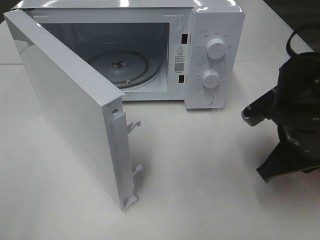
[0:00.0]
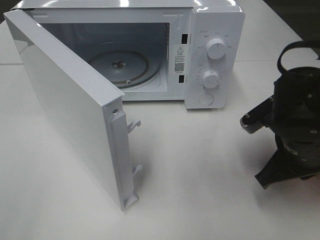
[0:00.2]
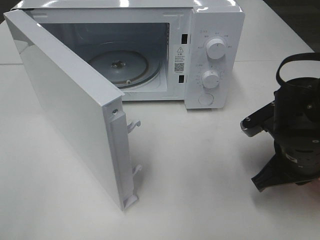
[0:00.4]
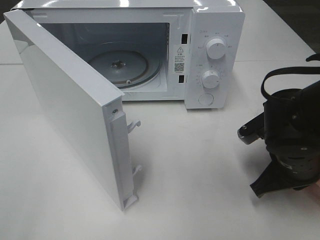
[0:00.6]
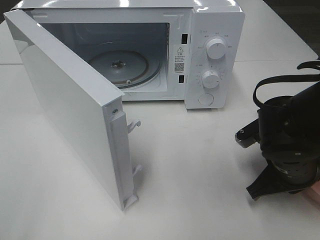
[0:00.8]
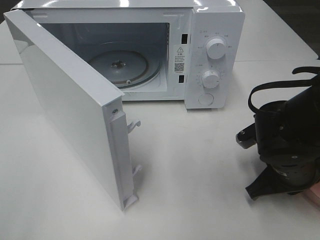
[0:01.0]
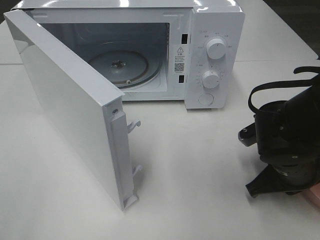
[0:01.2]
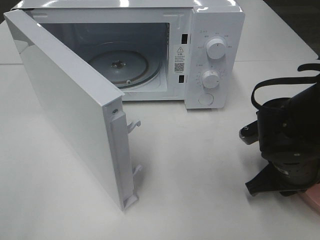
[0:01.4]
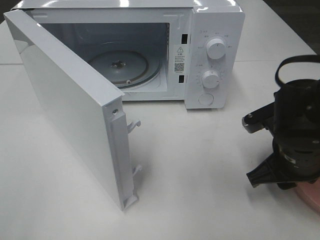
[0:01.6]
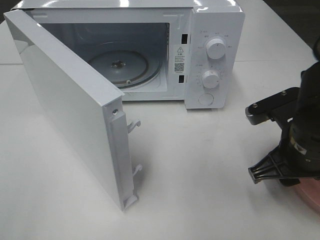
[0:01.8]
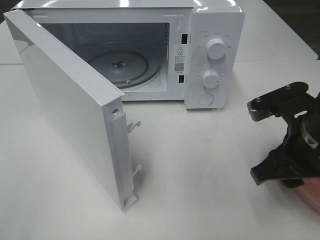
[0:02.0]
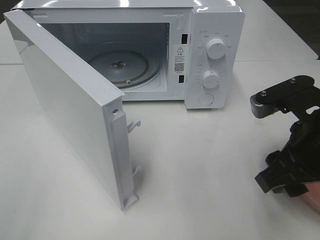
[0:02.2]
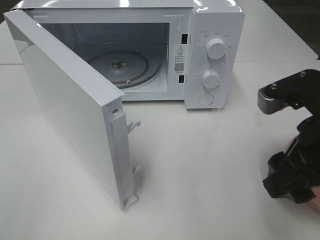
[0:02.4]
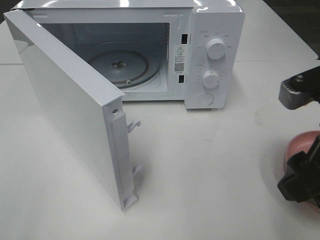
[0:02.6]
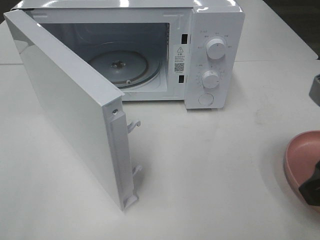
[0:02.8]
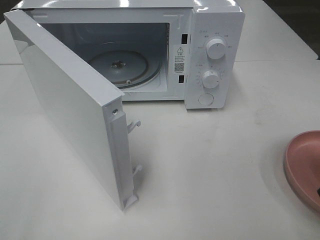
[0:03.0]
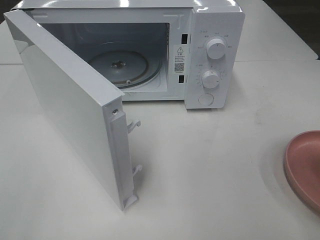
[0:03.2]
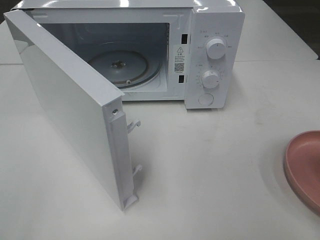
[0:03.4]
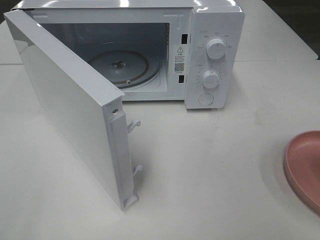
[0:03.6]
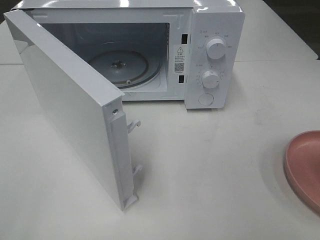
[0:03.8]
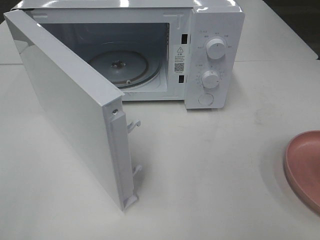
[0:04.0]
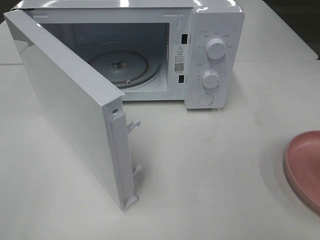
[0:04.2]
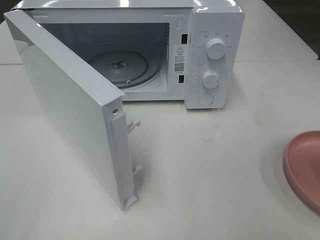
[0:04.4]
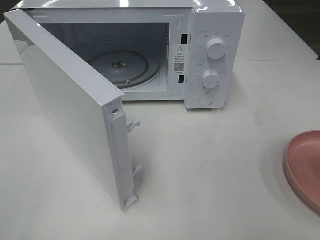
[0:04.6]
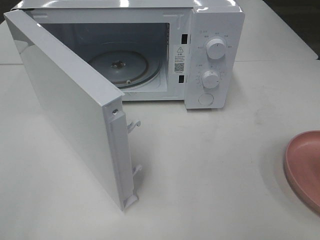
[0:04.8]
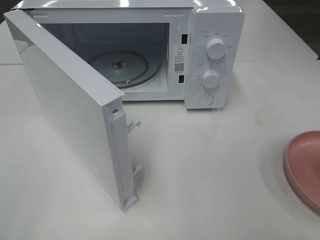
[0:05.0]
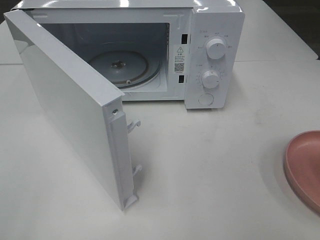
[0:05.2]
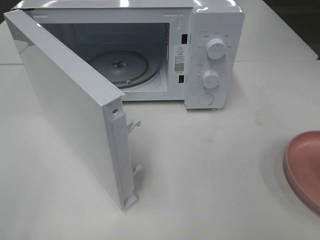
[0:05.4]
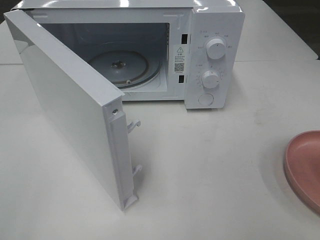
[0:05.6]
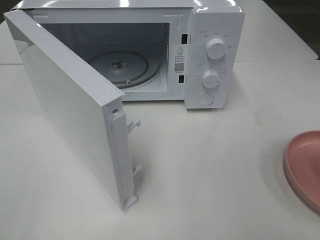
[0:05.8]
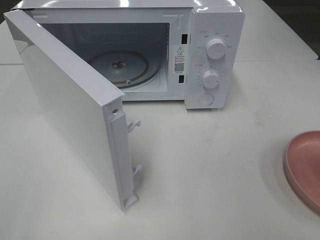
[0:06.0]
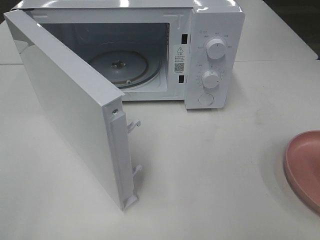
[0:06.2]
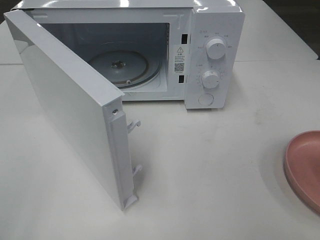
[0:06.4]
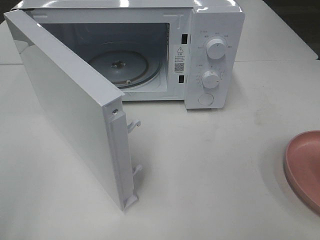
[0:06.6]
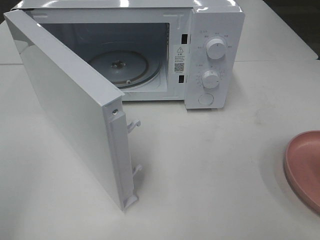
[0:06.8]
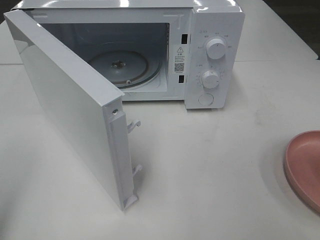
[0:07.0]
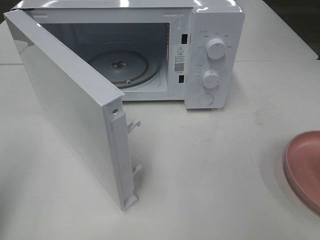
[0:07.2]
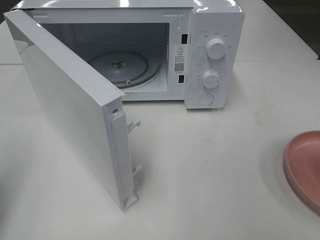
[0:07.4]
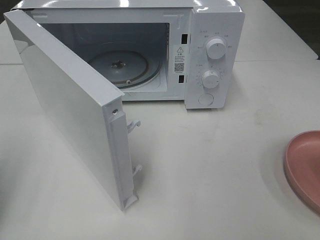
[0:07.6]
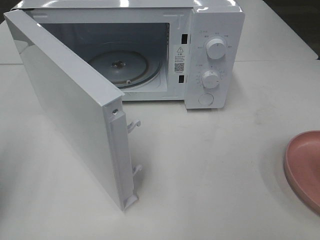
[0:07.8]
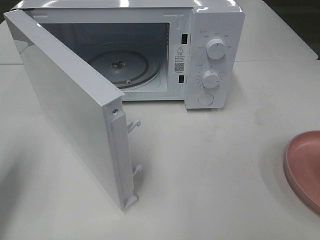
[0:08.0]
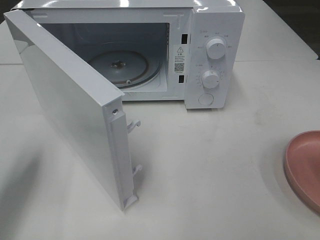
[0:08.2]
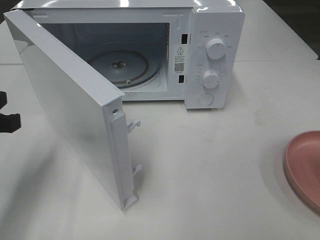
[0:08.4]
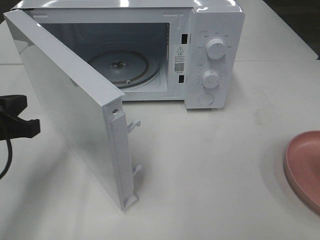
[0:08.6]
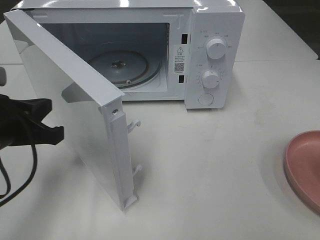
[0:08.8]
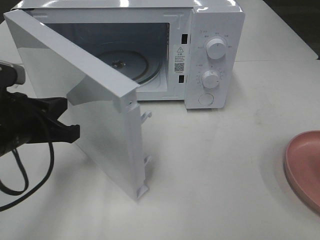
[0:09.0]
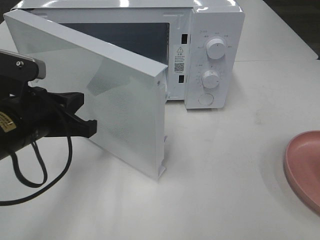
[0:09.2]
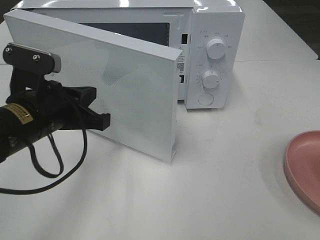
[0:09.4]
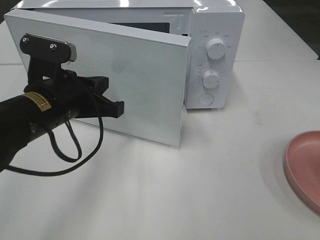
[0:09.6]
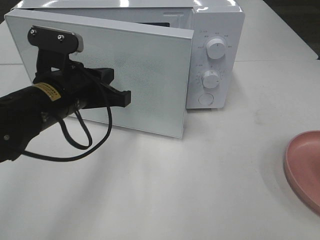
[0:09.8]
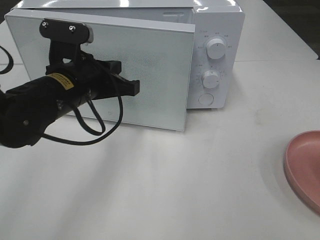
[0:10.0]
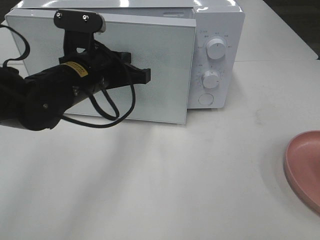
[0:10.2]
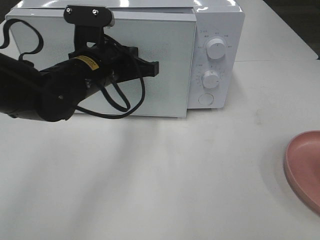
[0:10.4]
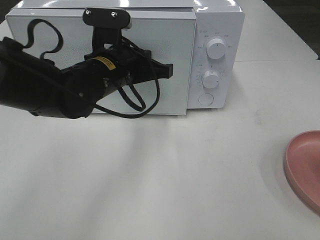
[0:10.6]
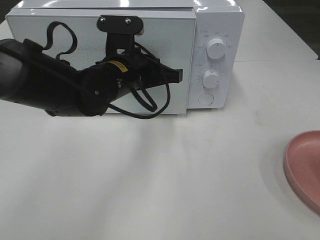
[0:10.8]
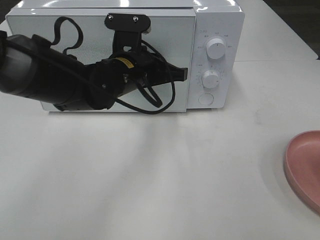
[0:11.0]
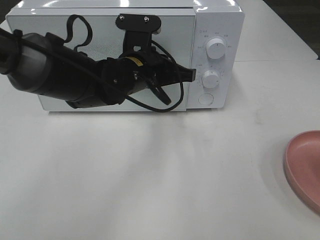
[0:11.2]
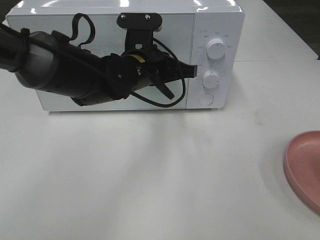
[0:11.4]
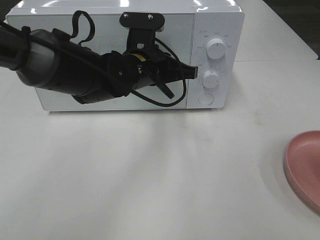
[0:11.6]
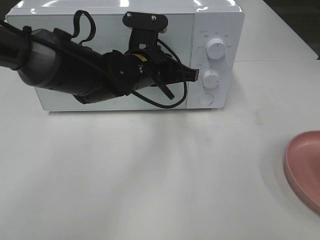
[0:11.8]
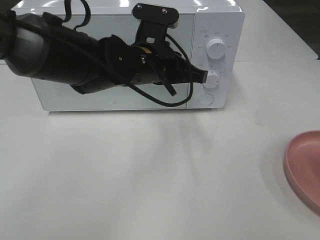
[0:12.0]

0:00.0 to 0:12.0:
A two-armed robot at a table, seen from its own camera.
Task of the whole recording: Heat the burger.
Step, 0:01.6 to 0:11.8: Left hand: close the microwave door.
0:00.0 to 0:01.6: The right gripper opens its fingers.
0:01.6 to 0:03.0: The right gripper is displaced upward and backward by roughly 20 cm.
0:04.4 to 0:06.0: Both grippers stay put.
0:06.0 to 0:07.6: The left gripper goes approximately 15 cm forward, and closes up.
0:07.6 to 0:09.0: The left gripper travels to the right, downward and forward by some 15 cm.
0:09.0 to 0:10.4: The left gripper travels to the right and forward by some 15 cm.
0:10.4 to 0:12.0: The left gripper travels to the right by some 10 cm.

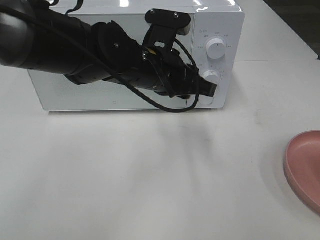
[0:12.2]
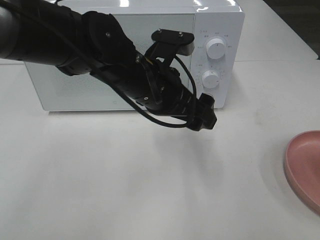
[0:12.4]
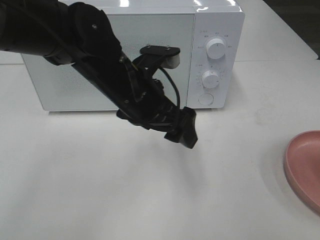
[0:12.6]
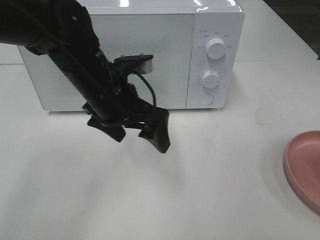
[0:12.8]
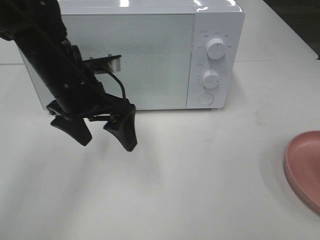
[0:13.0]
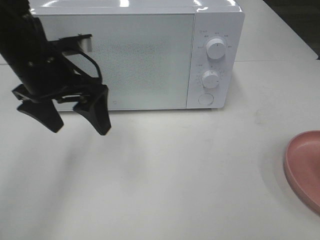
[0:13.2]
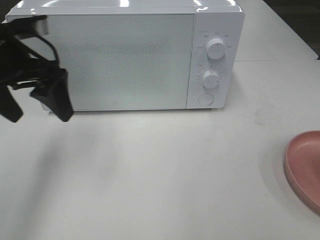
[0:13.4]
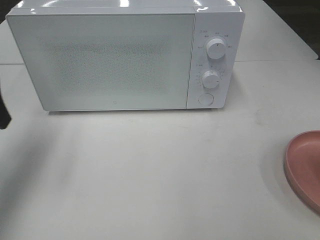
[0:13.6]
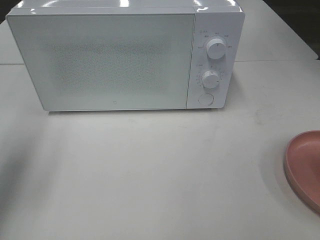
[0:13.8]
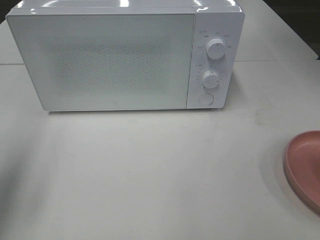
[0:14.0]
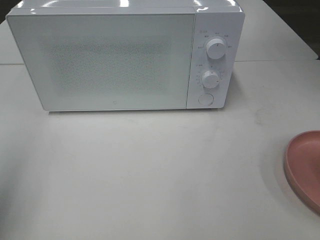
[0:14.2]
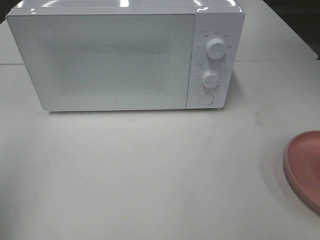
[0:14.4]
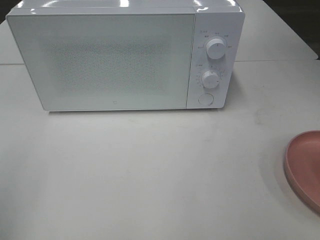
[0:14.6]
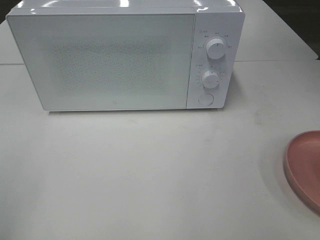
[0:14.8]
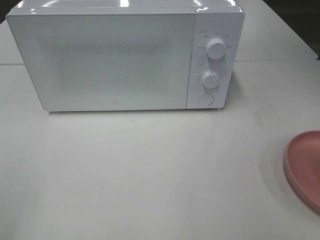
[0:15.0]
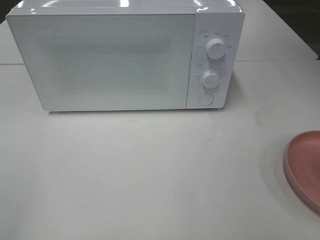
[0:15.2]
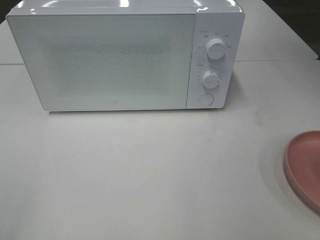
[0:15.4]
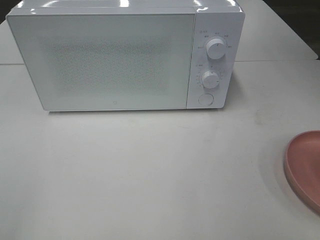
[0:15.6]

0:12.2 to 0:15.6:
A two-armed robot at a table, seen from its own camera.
Task of the whole recording: Heat the burger.
0:12.2 to 0:13.8: The left gripper is displaced to the left by approximately 30 cm, and opens.
0:13.8 to 0:15.6: The left gripper is displaced backward by about 25 cm.

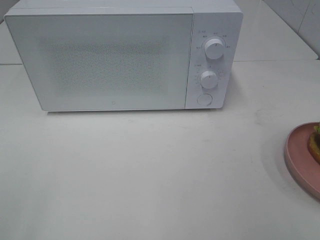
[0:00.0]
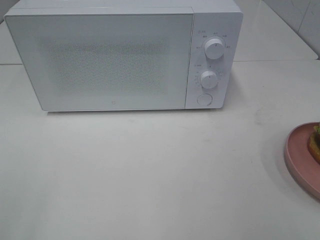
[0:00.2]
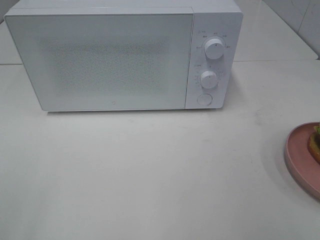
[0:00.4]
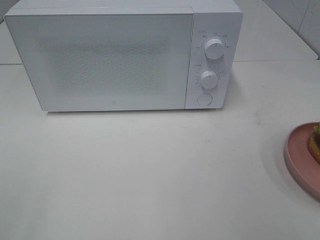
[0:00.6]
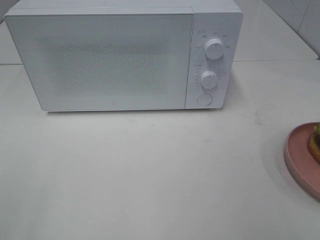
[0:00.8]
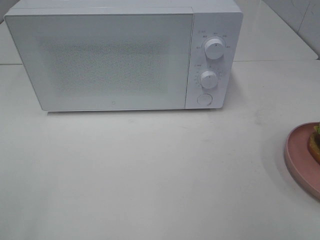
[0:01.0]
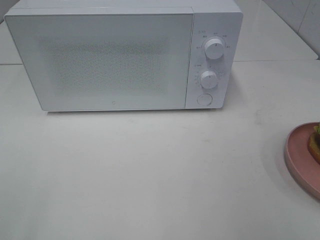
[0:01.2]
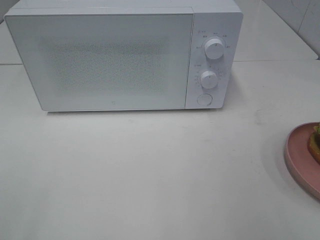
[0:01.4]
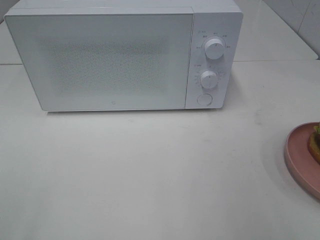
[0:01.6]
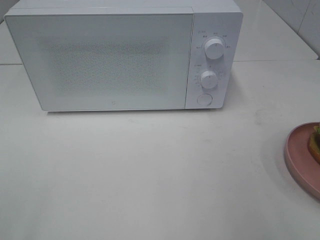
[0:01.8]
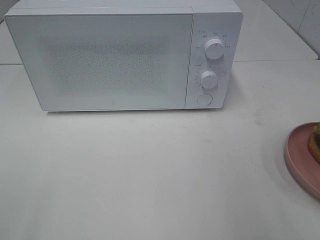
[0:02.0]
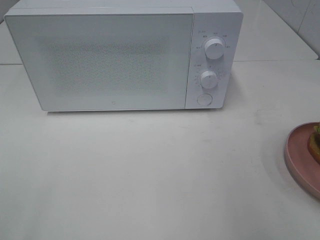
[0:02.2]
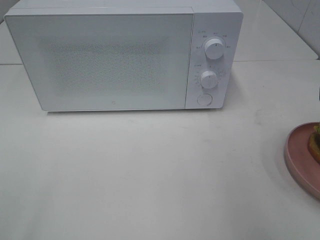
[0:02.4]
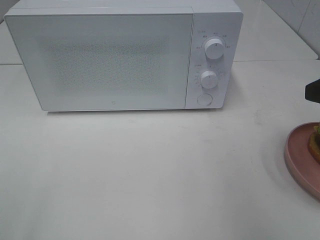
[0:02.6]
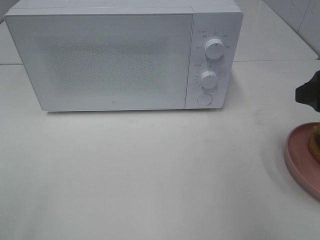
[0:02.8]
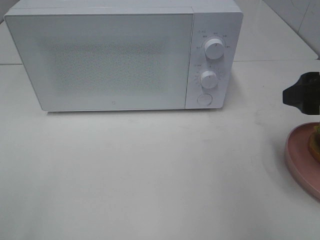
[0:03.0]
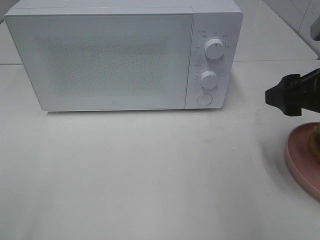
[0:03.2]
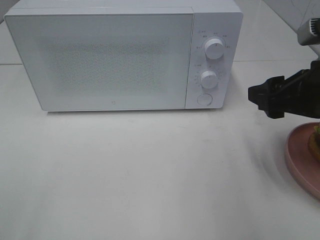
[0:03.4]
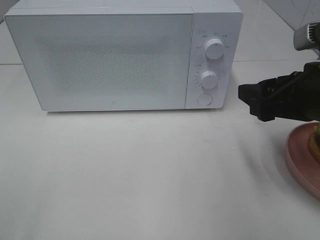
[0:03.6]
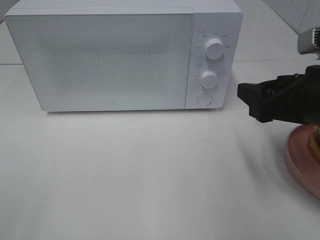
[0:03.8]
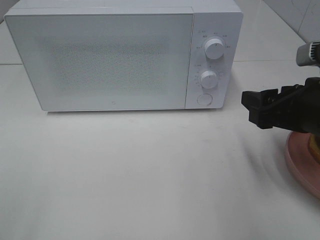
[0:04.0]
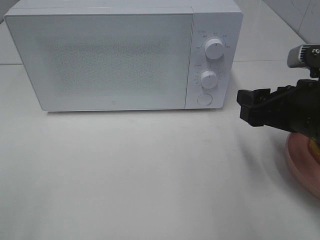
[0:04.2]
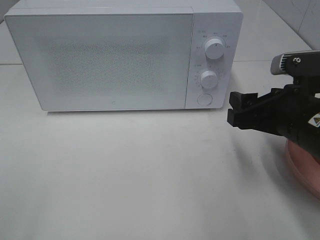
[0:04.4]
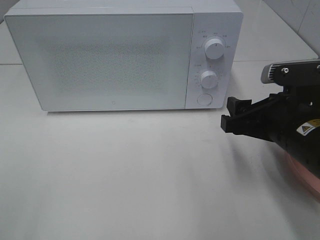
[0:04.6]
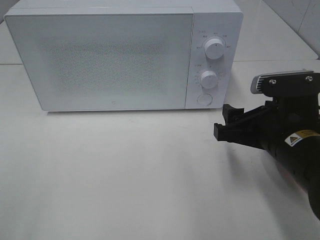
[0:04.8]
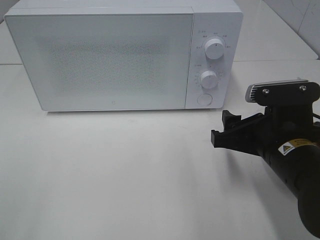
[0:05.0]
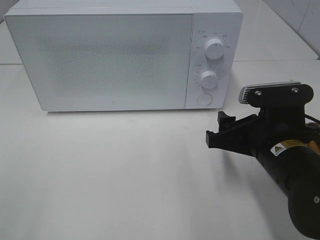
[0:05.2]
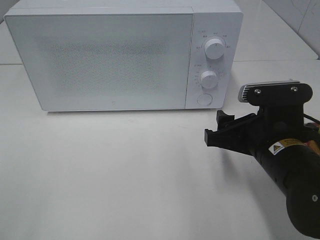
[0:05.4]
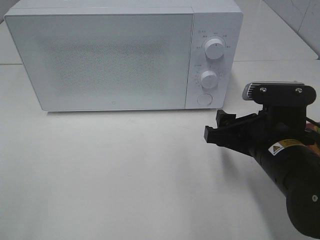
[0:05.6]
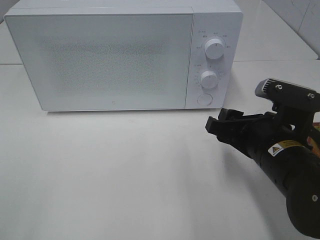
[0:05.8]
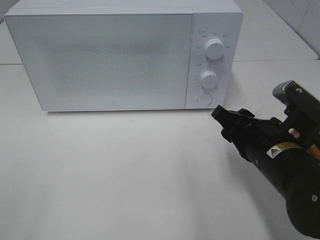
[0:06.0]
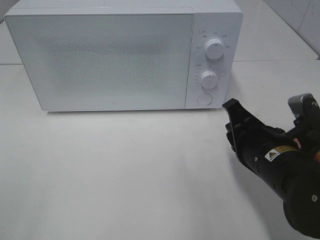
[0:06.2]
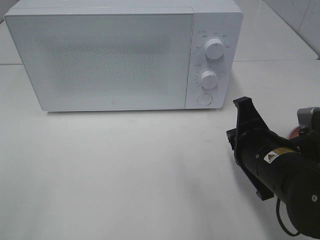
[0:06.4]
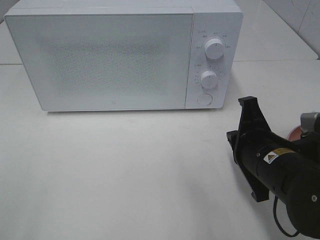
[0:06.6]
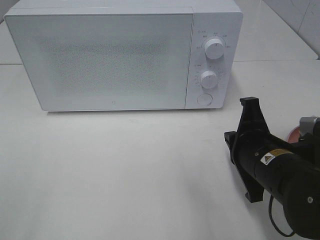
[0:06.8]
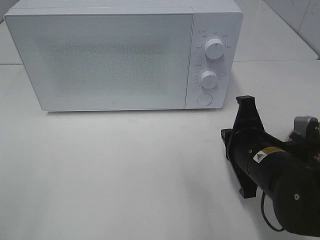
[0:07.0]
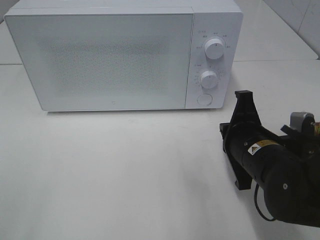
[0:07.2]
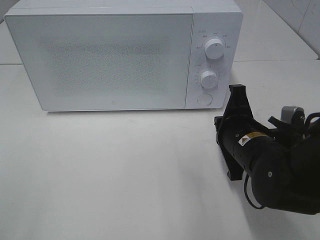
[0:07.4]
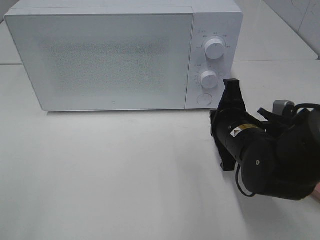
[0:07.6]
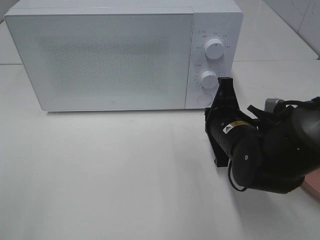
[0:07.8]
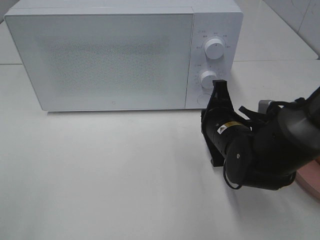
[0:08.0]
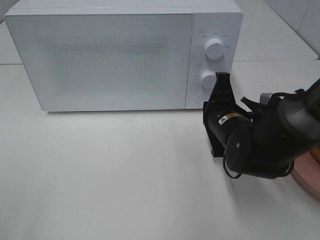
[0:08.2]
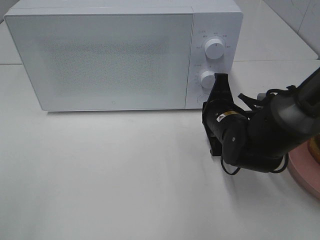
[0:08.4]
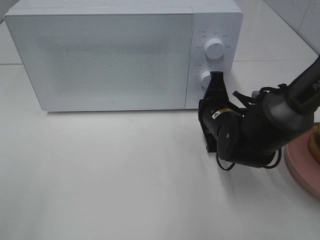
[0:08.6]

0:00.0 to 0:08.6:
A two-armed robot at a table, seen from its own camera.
Task of the whole recording: Heat the burger.
0:01.4 to 0:02.8: The right gripper moves forward, some 15 cm.
0:02.8 to 0:04.4: The right gripper shifts about 10 cm to the left and downward.
0:04.4 to 0:05.8: The right gripper shifts by approximately 5 cm.
0:05.8 to 0:07.2: The right gripper closes.
0:07.2 to 0:08.6: The right gripper travels forward by approximately 10 cm.
